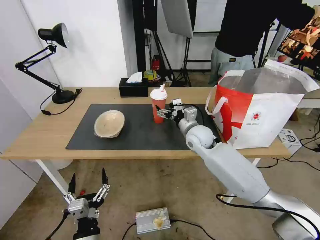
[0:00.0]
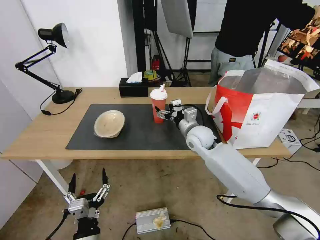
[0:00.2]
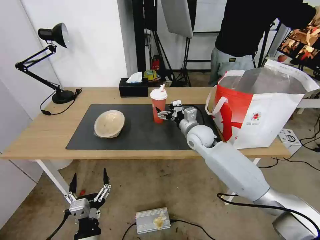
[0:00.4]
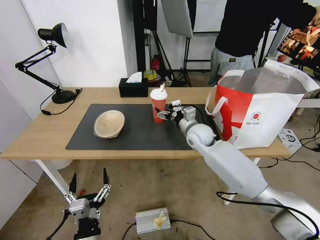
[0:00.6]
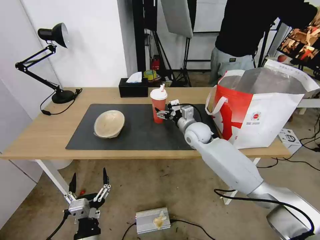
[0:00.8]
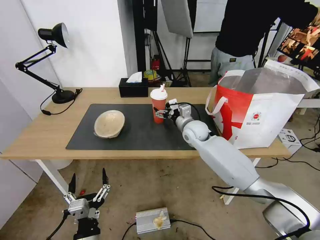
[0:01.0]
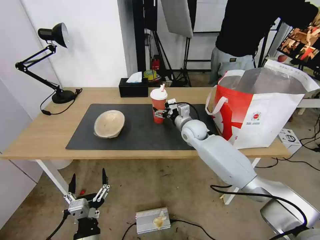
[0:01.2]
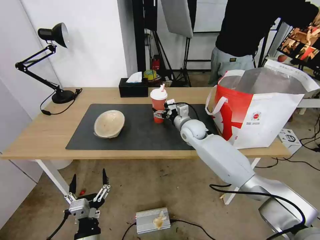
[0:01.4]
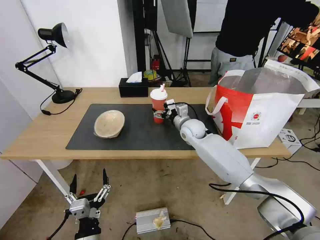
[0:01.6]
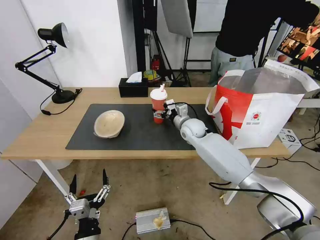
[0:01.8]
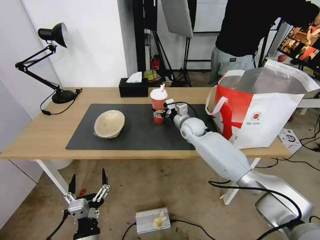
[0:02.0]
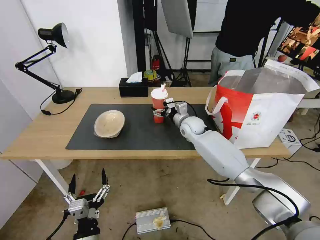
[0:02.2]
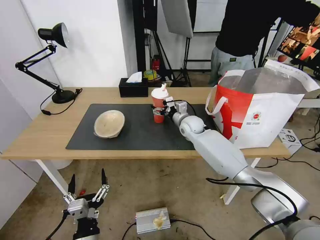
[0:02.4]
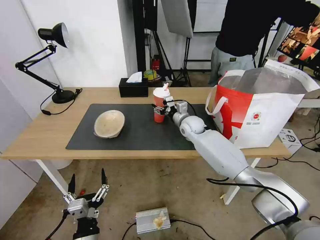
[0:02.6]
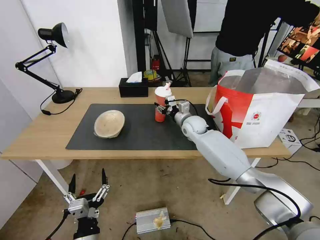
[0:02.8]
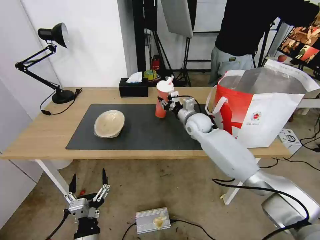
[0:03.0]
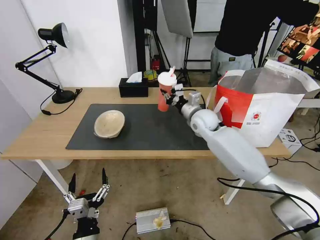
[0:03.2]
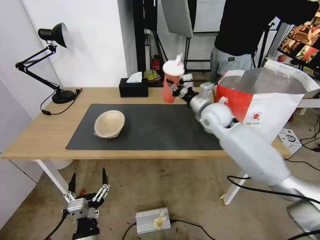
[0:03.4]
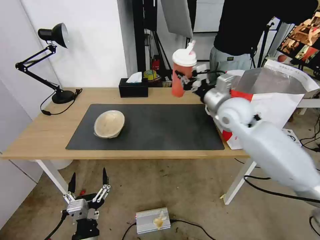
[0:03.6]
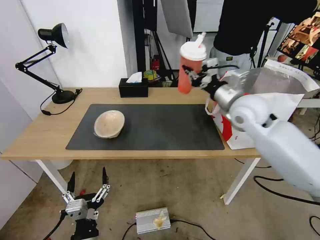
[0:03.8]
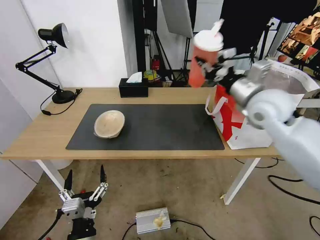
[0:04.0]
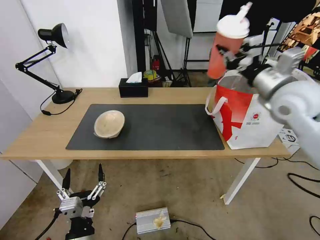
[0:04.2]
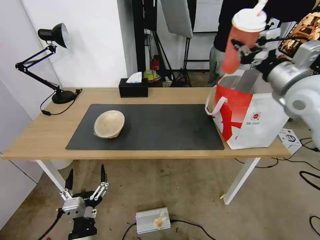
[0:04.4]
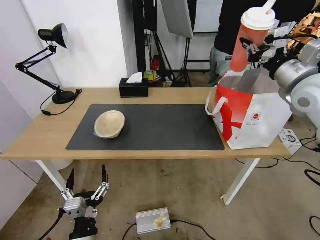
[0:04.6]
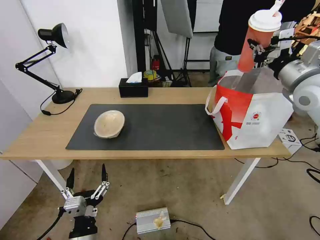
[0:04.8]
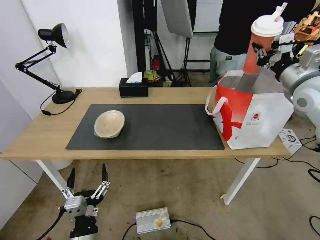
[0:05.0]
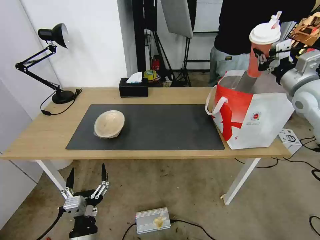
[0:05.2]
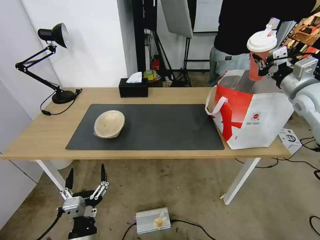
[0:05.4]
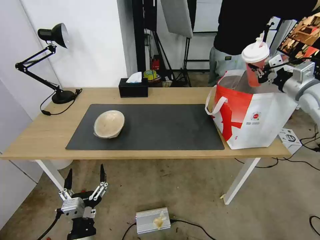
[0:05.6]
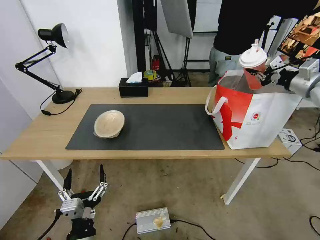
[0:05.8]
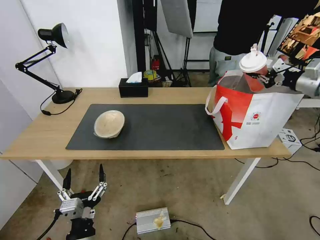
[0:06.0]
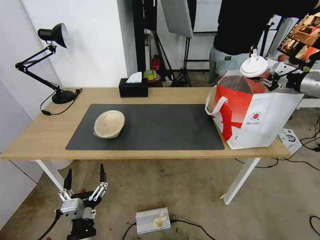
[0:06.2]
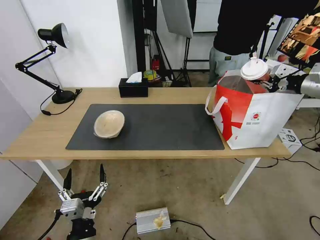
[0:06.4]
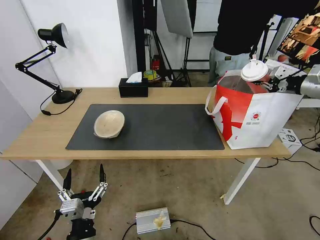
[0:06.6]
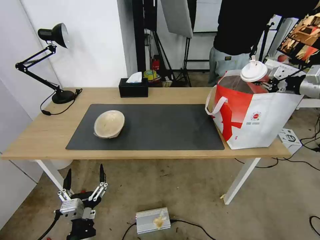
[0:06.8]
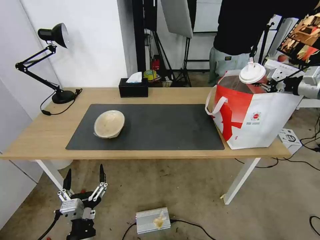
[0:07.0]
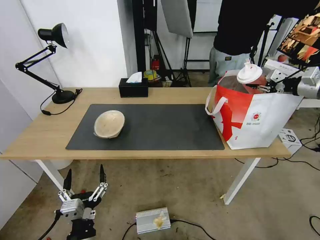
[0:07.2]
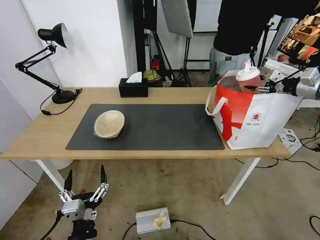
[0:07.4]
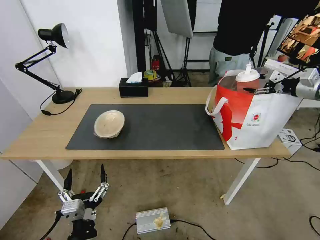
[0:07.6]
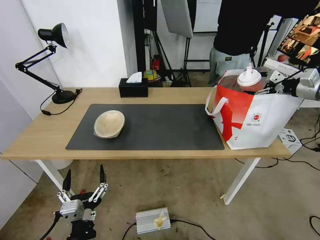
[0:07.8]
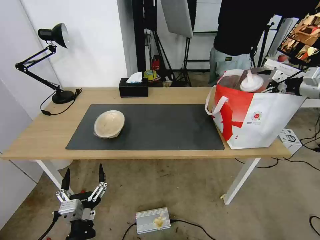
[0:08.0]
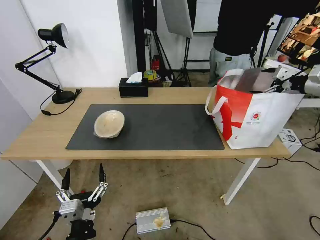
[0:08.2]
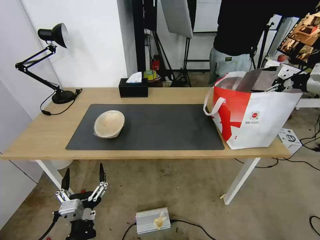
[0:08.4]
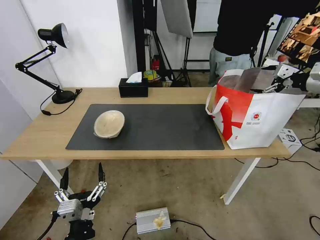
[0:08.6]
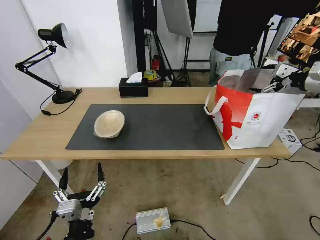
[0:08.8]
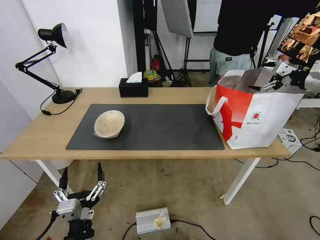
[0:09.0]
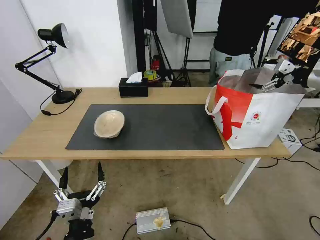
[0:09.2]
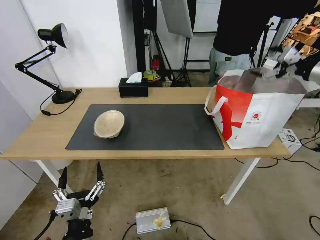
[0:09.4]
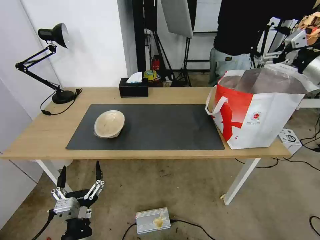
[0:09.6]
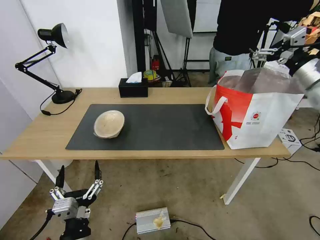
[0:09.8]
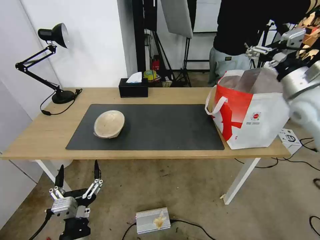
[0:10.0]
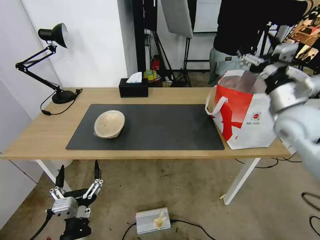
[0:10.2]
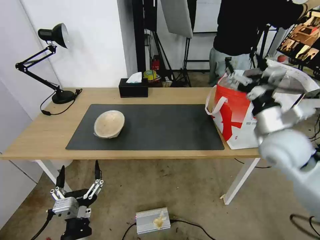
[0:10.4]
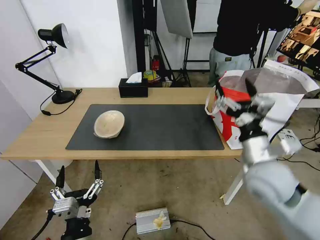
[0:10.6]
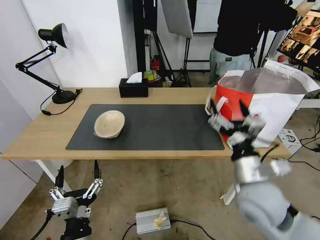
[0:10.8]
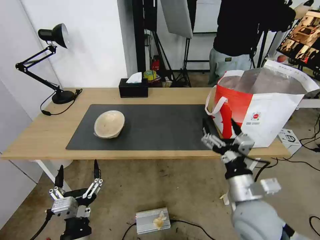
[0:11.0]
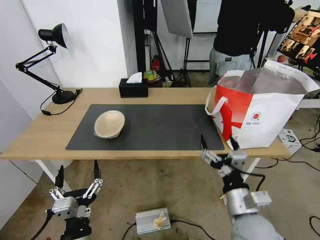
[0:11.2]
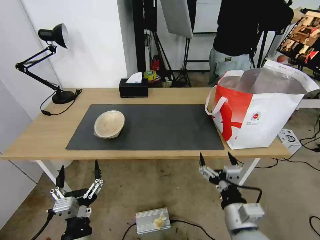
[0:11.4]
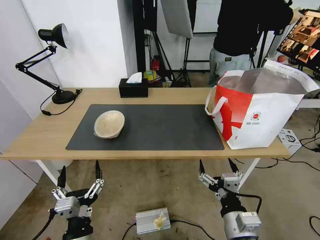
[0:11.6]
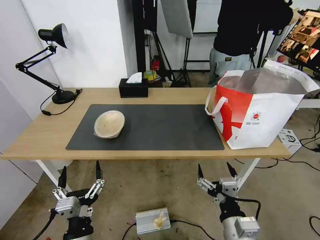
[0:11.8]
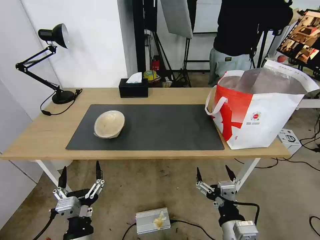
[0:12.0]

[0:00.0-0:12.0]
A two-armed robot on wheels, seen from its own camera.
Task of the whole recording: Pick up the trash from the table and place it into the takeout bag.
0:00.0 to 0:01.6: The right gripper moves forward, some 5 cm.
0:01.6 to 0:03.0: The right gripper closes its fingers.
0:03.0 to 0:04.4: The right gripper moves upward, to the right and backward, about 35 cm.
0:04.4 to 0:06.0: The right gripper heads to the right and forward, covering roughly 20 cm.
0:06.0 to 0:07.6: The right gripper opens.
0:07.6 to 0:09.0: The right gripper opens its fingers.
0:09.0 to 0:10.4: The right gripper heads to the left, backward and downward, covering approximately 30 cm.
0:10.4 to 0:12.0: The right gripper moves backward, downward and to the left, about 30 cm.

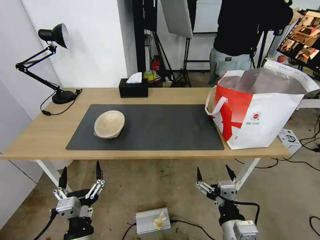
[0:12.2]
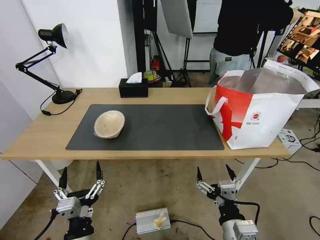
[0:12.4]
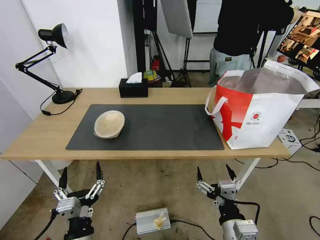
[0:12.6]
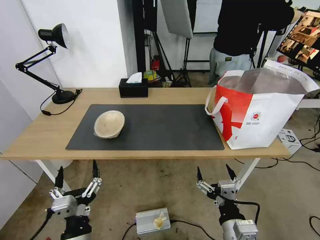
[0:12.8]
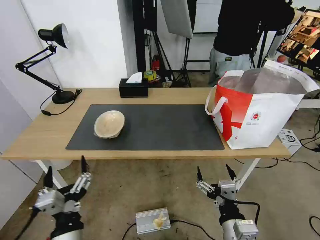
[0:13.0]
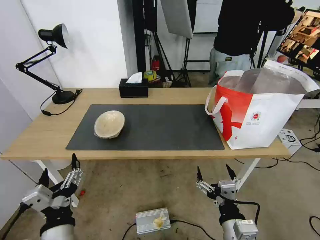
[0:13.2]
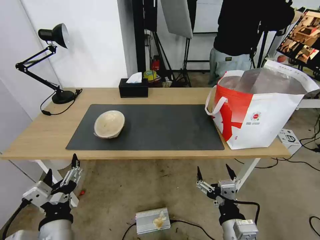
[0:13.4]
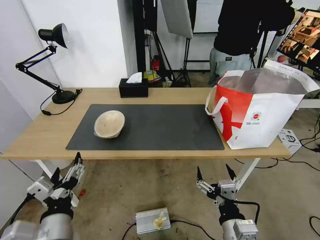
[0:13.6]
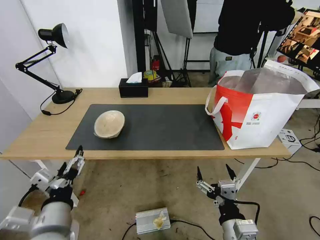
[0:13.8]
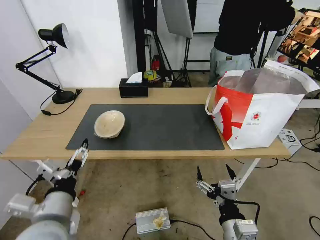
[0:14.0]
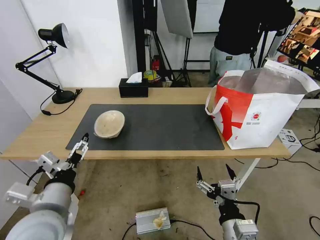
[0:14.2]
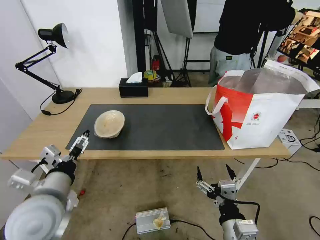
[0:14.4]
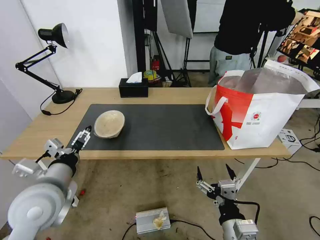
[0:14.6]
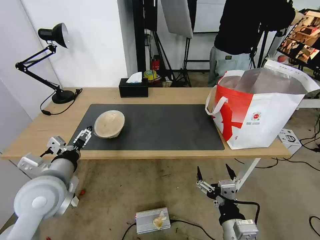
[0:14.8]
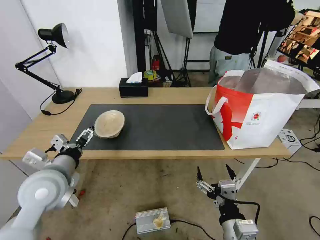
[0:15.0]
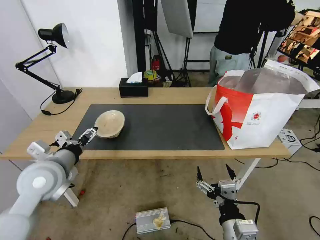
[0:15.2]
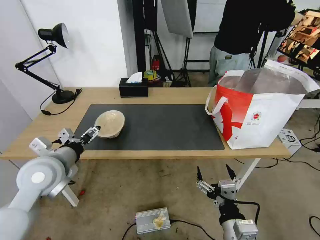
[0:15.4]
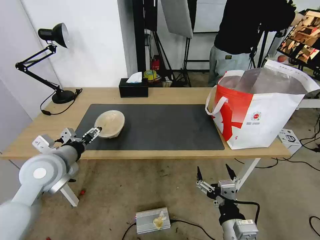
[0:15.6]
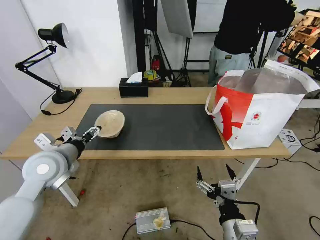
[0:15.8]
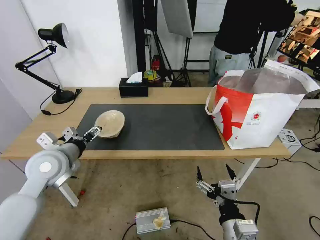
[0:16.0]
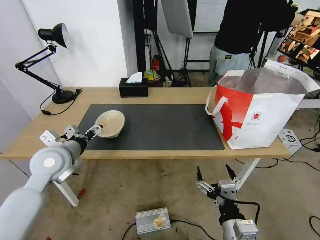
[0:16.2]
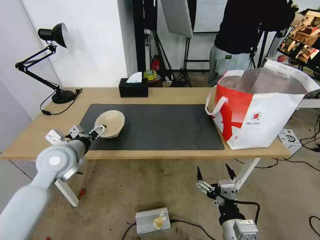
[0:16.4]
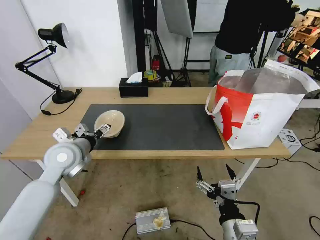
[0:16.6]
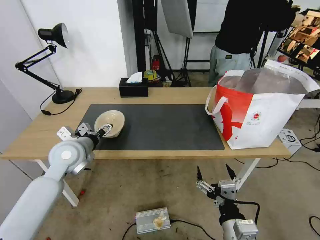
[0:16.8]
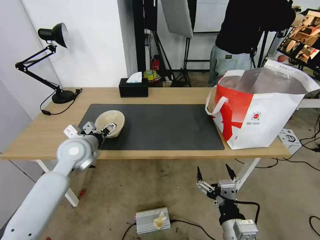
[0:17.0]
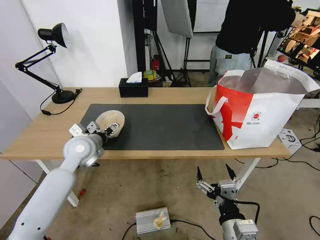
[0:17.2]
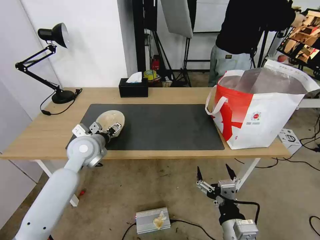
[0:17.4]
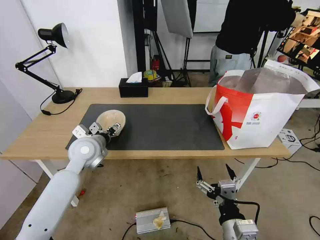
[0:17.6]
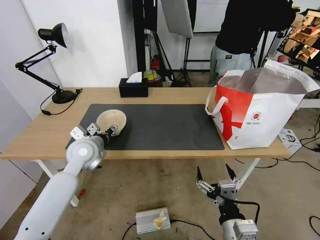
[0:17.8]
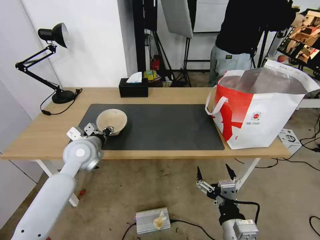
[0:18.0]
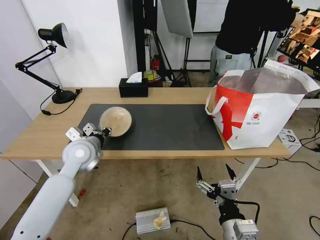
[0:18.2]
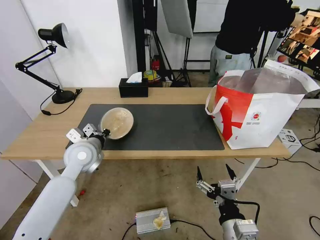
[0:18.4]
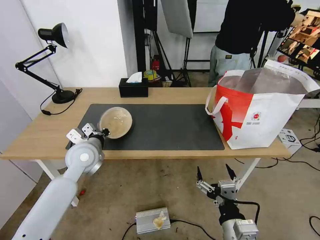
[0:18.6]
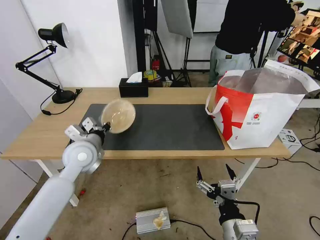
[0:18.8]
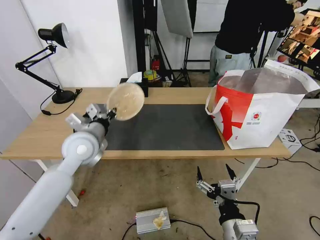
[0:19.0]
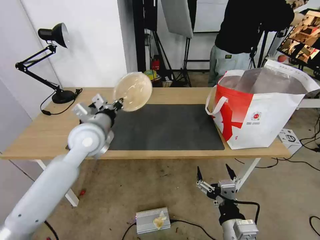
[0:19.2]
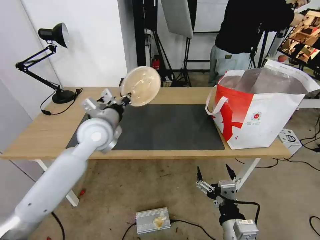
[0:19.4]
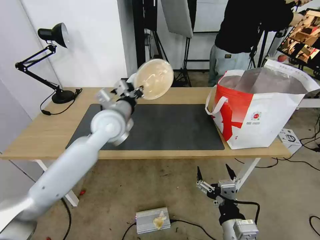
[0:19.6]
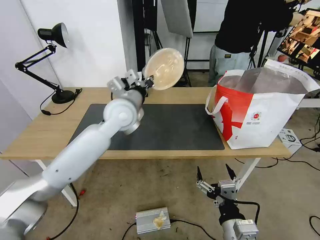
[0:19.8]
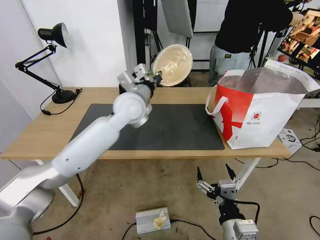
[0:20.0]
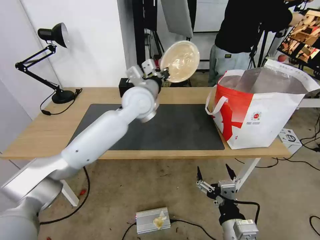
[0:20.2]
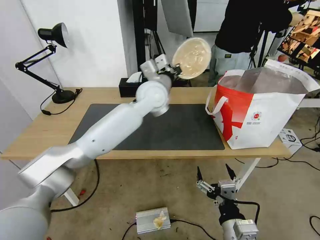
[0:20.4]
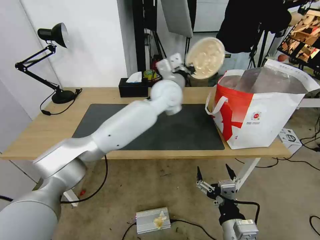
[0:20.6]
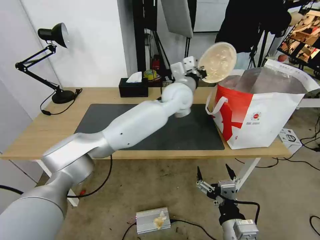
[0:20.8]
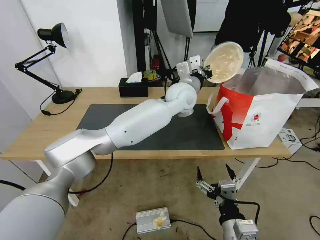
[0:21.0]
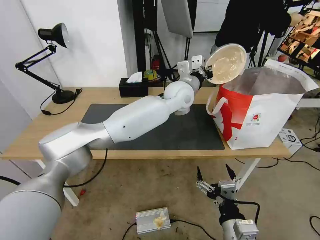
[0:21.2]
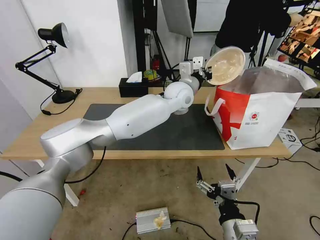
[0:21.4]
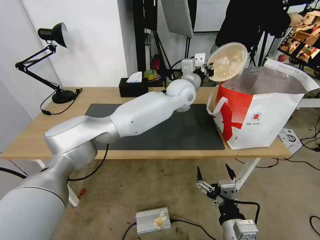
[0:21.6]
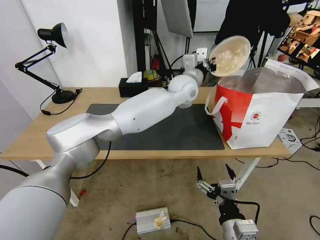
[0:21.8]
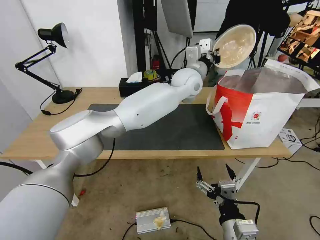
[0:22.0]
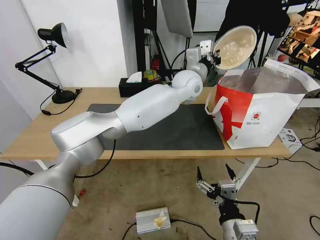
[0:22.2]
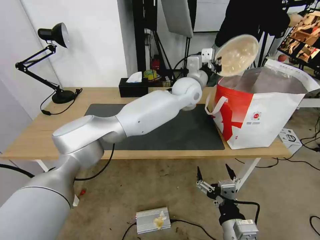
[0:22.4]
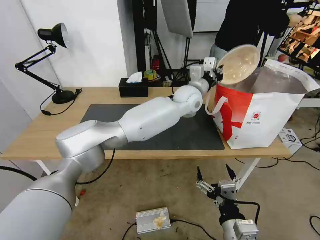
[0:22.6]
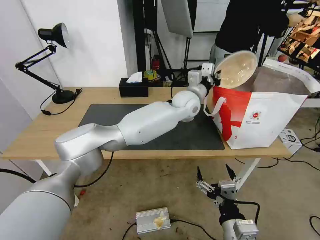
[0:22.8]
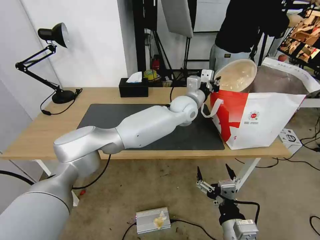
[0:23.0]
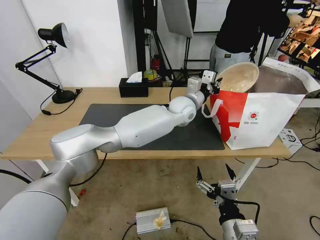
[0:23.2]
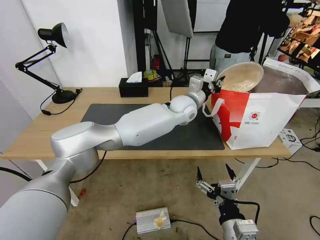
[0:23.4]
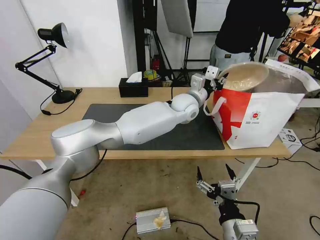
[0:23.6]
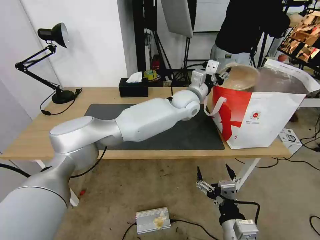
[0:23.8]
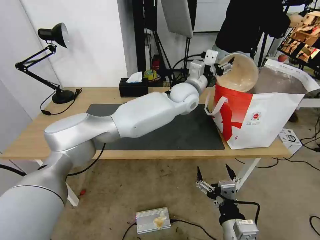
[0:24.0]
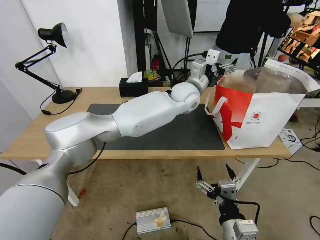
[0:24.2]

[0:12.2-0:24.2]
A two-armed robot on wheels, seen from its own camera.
Task of the whole recording: Pick up the trash from the table and place it into the takeout bag.
0:12.2 to 0:13.8: The left gripper heads upward, covering about 10 cm.
0:13.8 to 0:15.2: The left gripper is displaced forward by some 15 cm.
0:15.2 to 0:16.6: The left gripper heads forward, covering roughly 10 cm.
0:16.6 to 0:18.2: The left gripper closes up.
0:18.2 to 0:19.8: The left gripper shifts about 20 cm to the right, upward and forward.
0:19.8 to 0:21.2: The left gripper shifts roughly 20 cm to the right and forward.
0:21.2 to 0:22.6: The grippers make only small movements.
0:22.6 to 0:24.2: The left gripper opens up.
